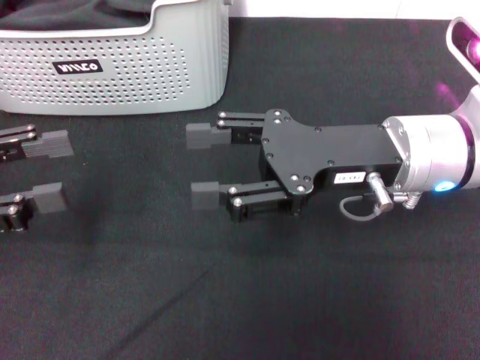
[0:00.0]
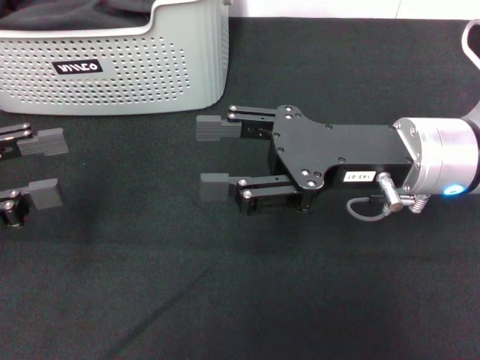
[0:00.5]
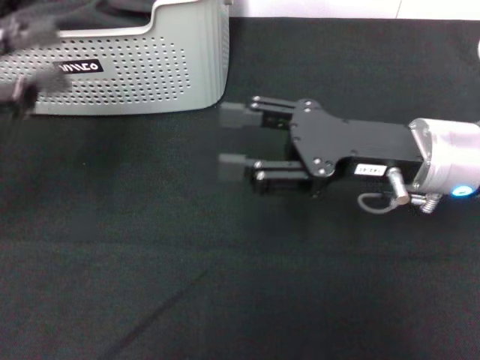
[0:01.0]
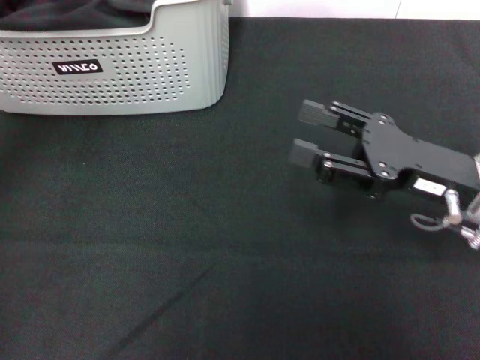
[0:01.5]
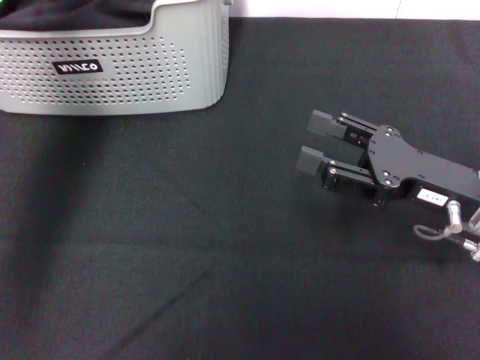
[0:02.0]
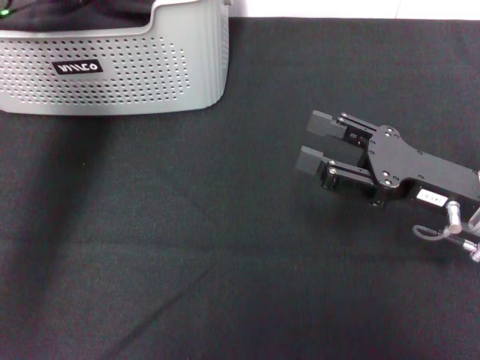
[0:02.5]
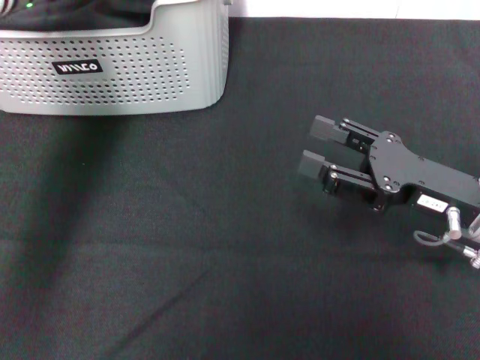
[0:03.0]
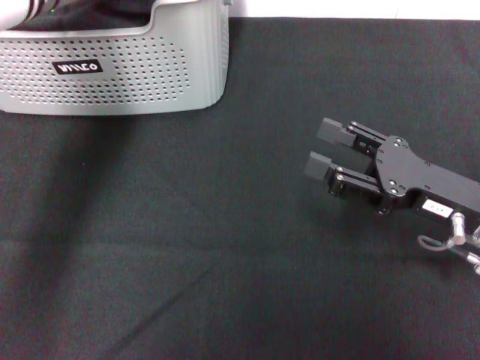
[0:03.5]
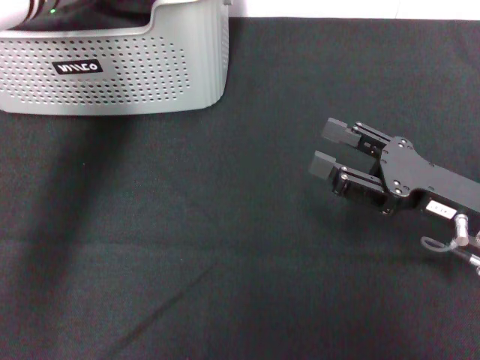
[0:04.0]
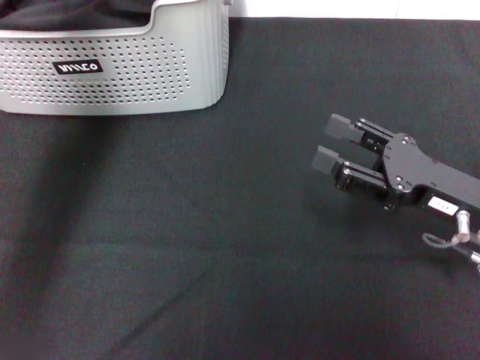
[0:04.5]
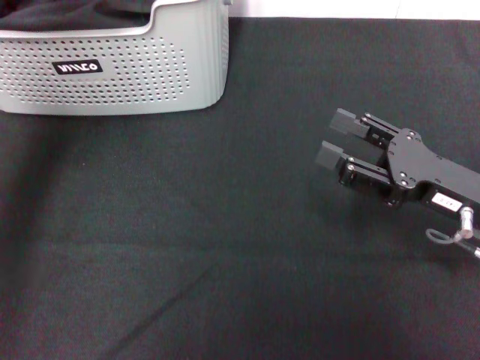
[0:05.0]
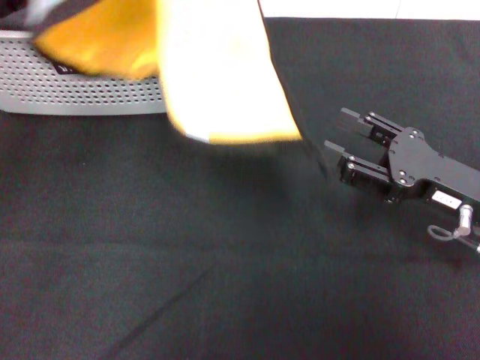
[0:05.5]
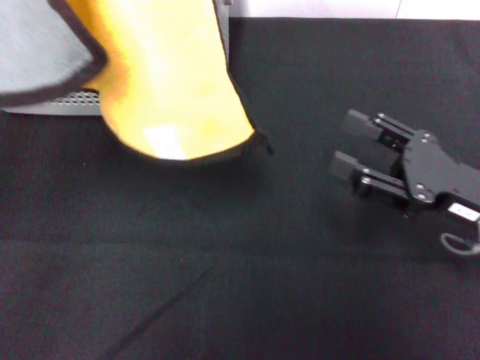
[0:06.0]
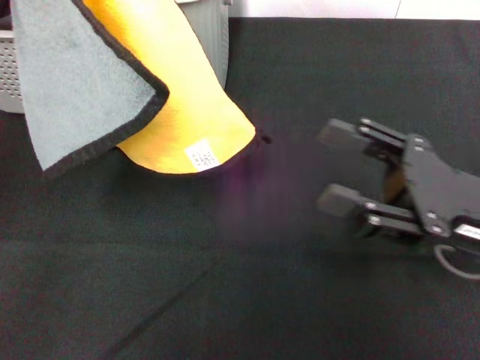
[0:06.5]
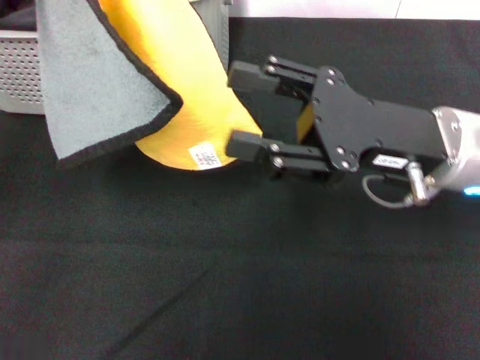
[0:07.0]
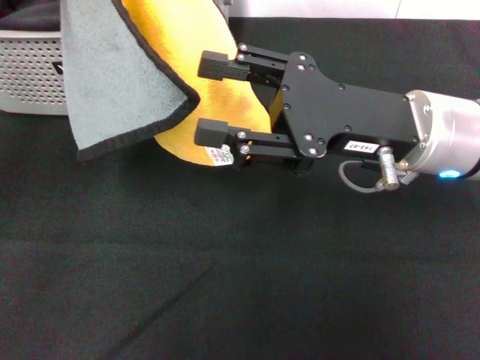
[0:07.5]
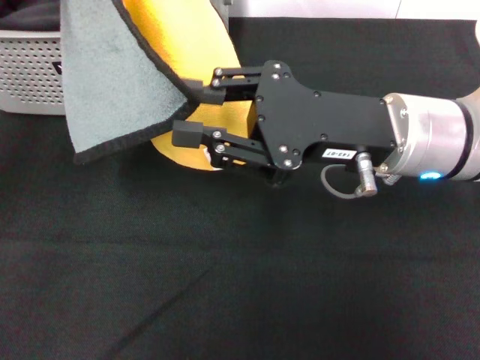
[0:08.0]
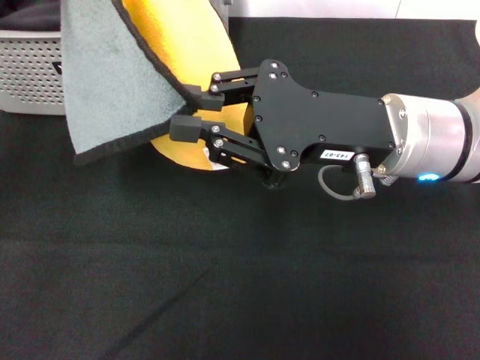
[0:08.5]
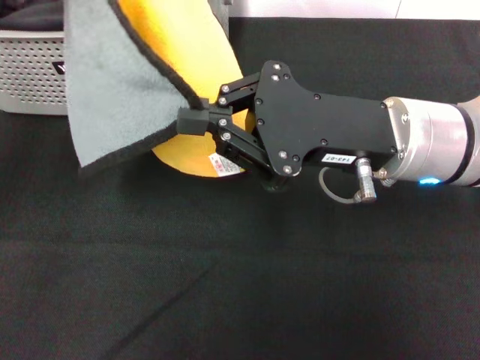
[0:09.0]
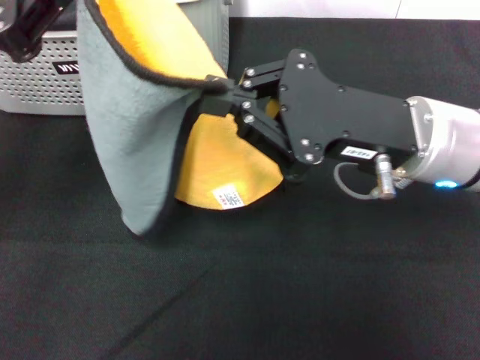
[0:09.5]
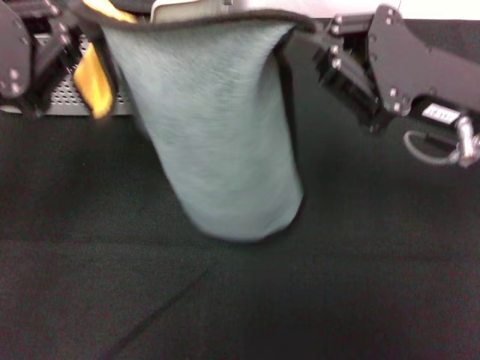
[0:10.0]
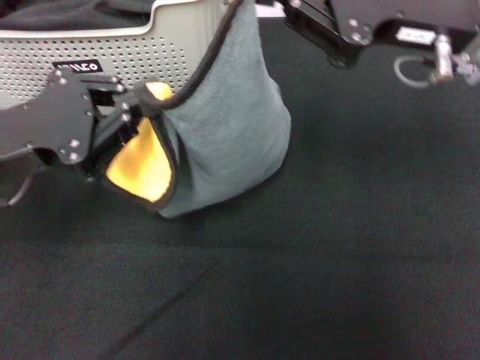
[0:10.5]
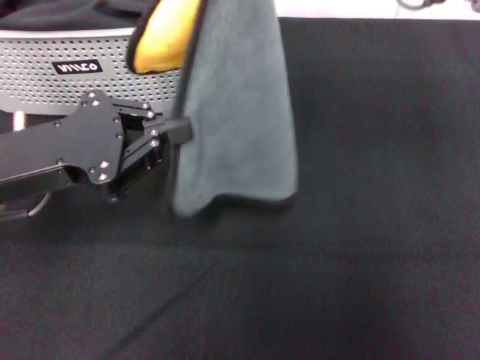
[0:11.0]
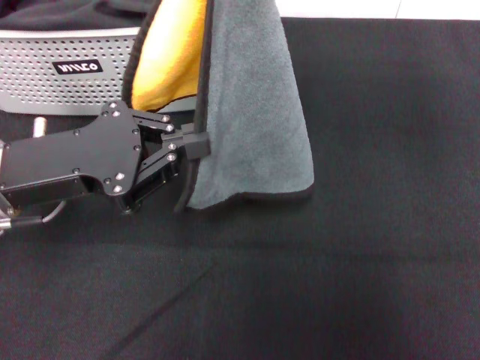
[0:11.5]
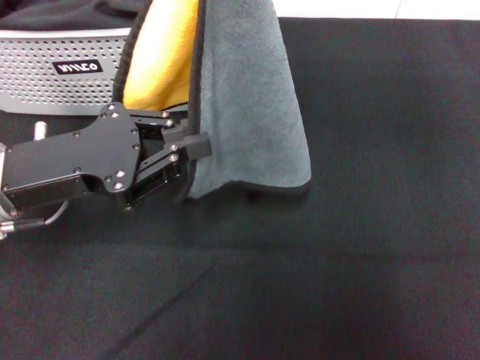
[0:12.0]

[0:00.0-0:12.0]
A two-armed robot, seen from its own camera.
Task of the whole recording: pick up the towel from the storage box and lay it flat on the black tablecloth.
Step, 0:00.0 to 0:04.0: Pick up a towel with the left gripper.
Step, 0:04.5 to 0:08.5: Spread the towel flat with the left gripper.
0:00.0 to 0:02.0: The right gripper goes roughly 10 cm to the right and downward. The left gripper is displaced forward, to the right and upward by some 20 cm.
0:02.0 to 0:04.0: The left gripper closes up.
0:04.0 to 0:06.0: The left gripper travels backward, upward and to the left by about 25 cm.
0:06.0 to 0:08.0: The left gripper shifts about 5 cm downward, while the right gripper goes some 15 cm to the left and upward.
0:08.0 to 0:10.0: The left gripper goes roughly 5 cm downward. The right gripper moves to the right, about 5 cm, and closes.
0:10.0 to 0:12.0: The right gripper heads upward and forward, covering some 15 cm. The left gripper shifts roughly 5 cm downward.

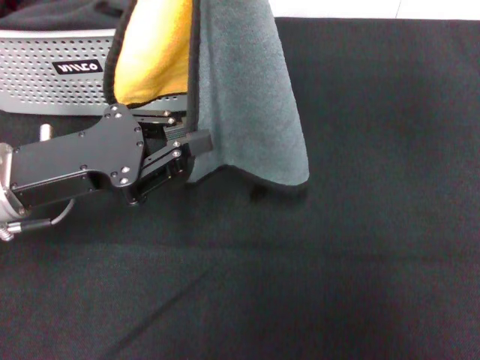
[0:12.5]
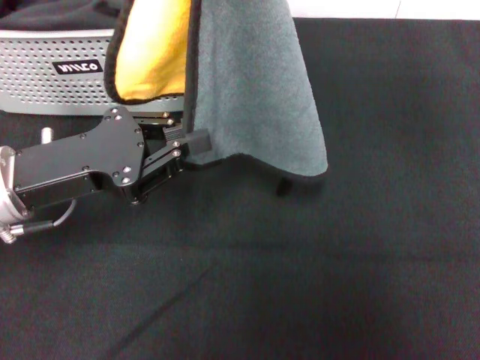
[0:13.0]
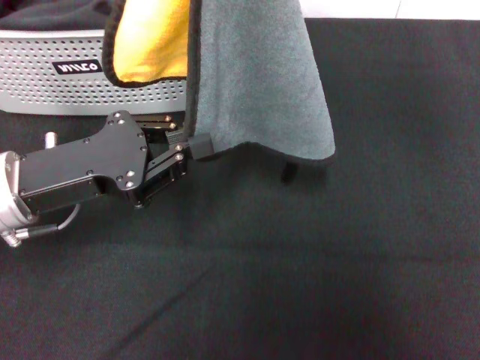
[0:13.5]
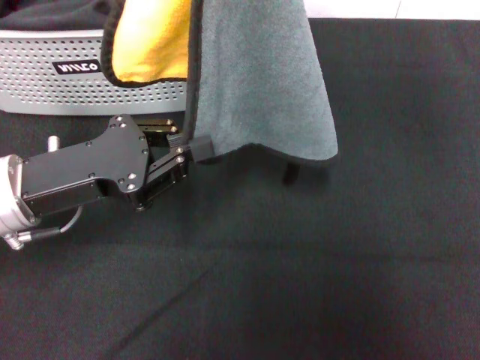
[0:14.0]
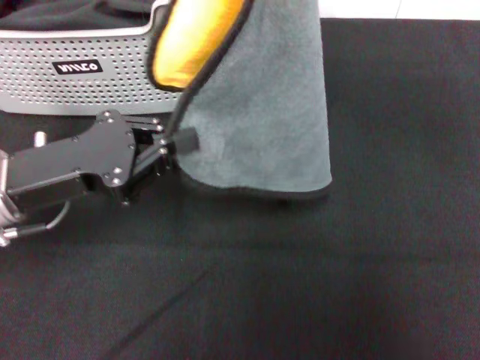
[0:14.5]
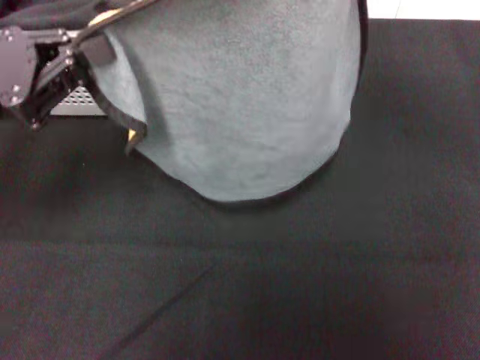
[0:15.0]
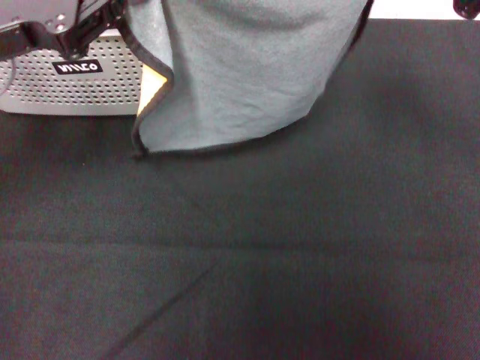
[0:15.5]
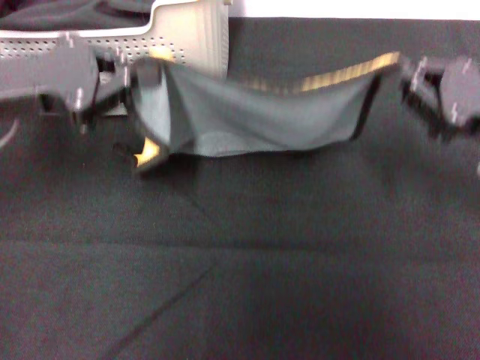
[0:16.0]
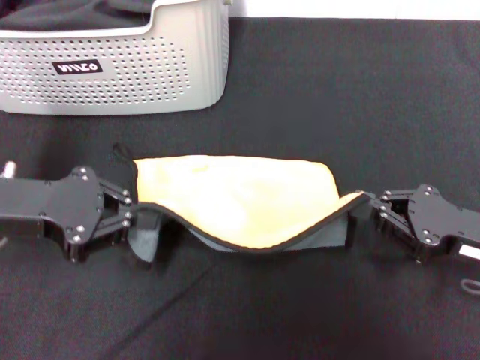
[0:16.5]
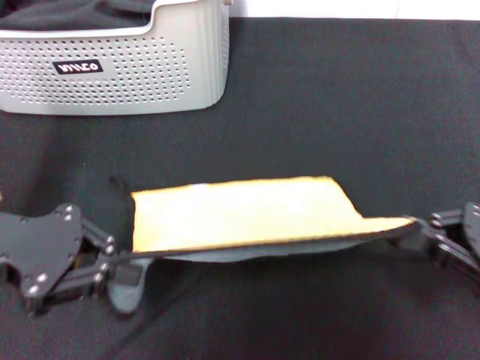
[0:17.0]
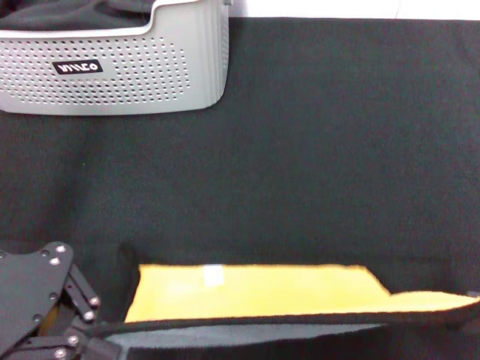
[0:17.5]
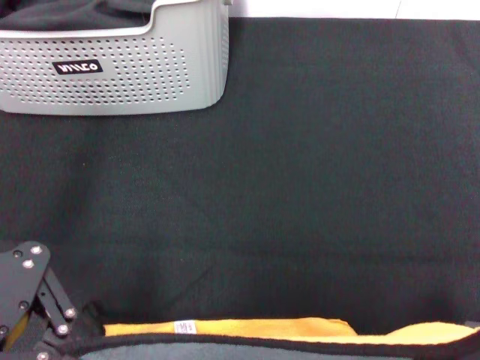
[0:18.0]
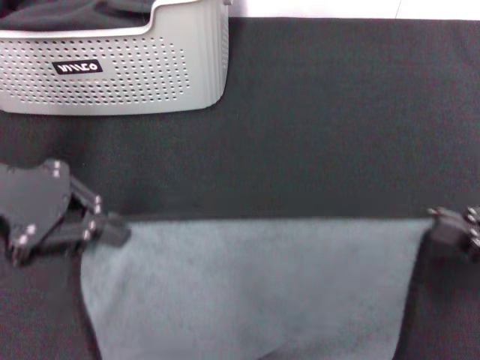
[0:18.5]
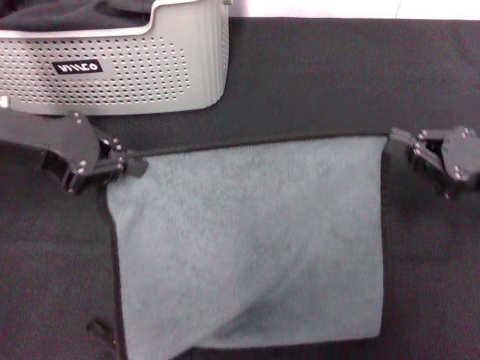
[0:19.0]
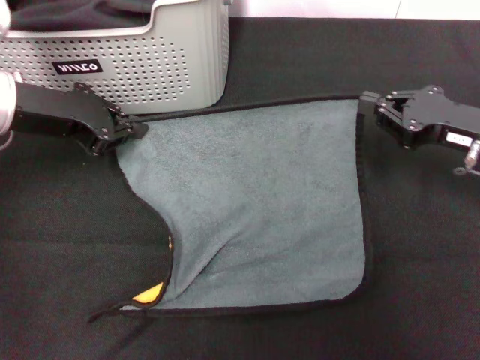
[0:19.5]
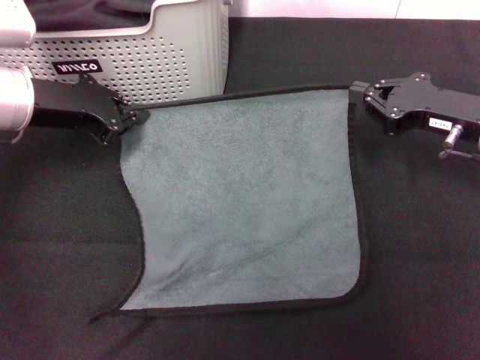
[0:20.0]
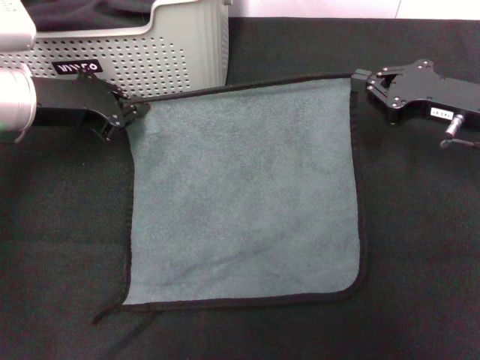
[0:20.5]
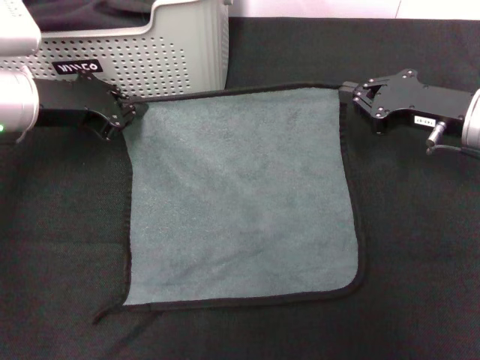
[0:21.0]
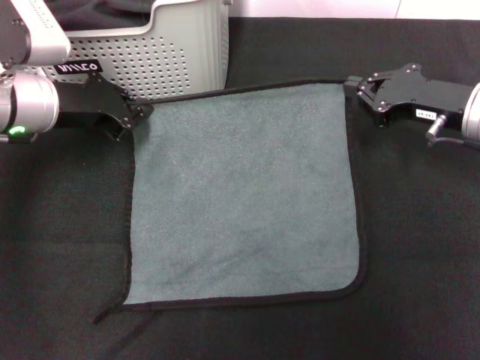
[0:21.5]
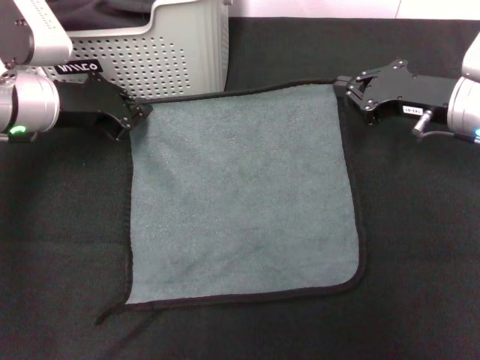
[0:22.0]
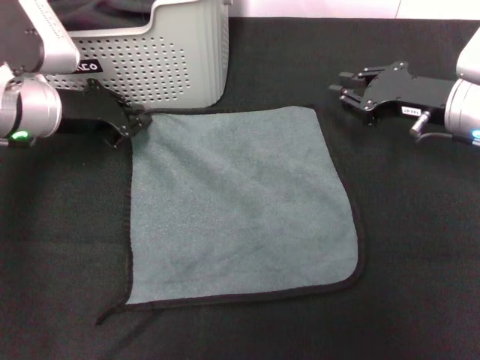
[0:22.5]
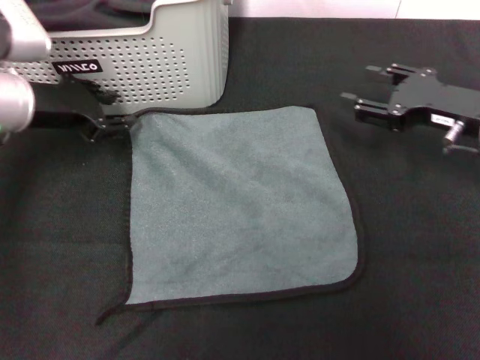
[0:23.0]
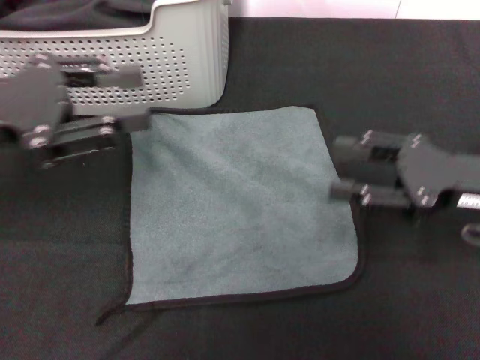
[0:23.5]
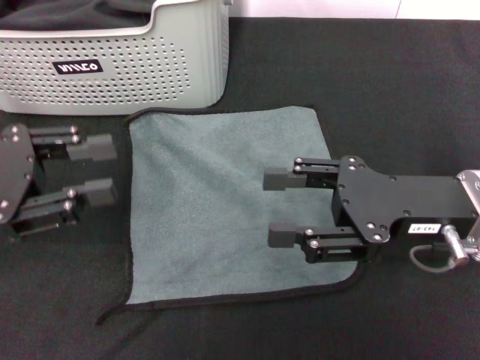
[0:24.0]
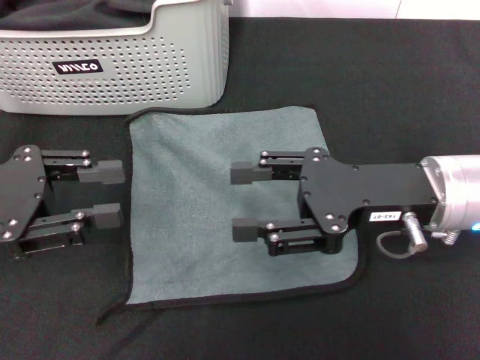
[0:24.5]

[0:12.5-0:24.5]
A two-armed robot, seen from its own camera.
Task of the whole recording: pick up the towel from the storage box and lay it flat on the black tablecloth.
Step, 0:12.5 to 0:22.0: Spread the towel flat with the right gripper.
0:12.5 to 0:14.5: There are only small adjustments of the grippers.
0:14.5 to 0:16.5: The left gripper travels upward and back again, some 10 cm each way. Meanwhile the right gripper heads downward and backward, covering roughly 25 cm.
0:16.5 to 0:18.5: The right gripper heads to the right, covering roughly 5 cm; the left gripper shifts approximately 5 cm upward.
0:18.5 to 0:20.5: The right gripper moves forward and to the left, roughly 15 cm. Meanwhile the left gripper goes roughly 10 cm forward and downward.
0:20.5 to 0:22.5: The grippers move only a little.
0:22.5 to 0:24.5: The two grippers go roughly 15 cm backward and to the left. The right gripper opens up; the left gripper opens up.
